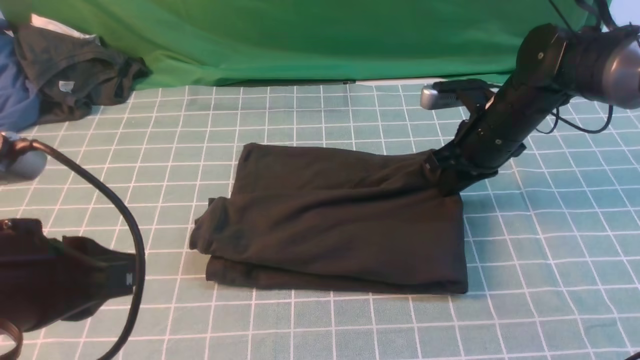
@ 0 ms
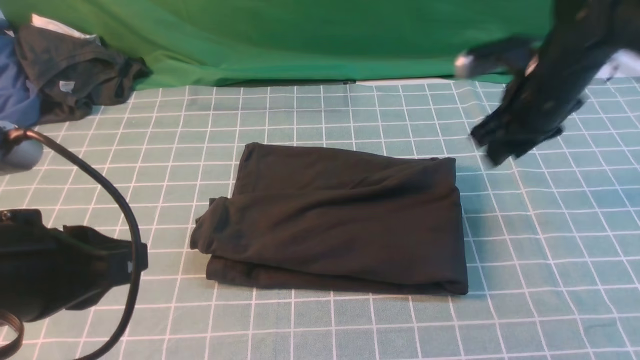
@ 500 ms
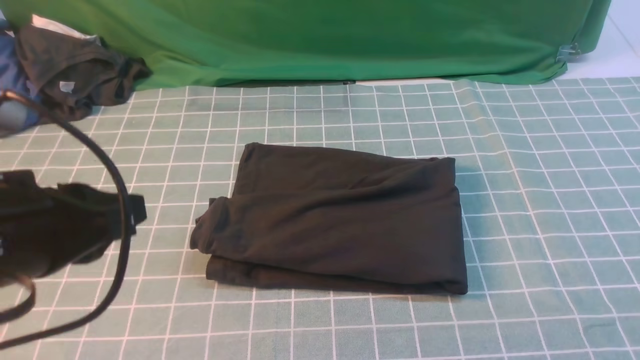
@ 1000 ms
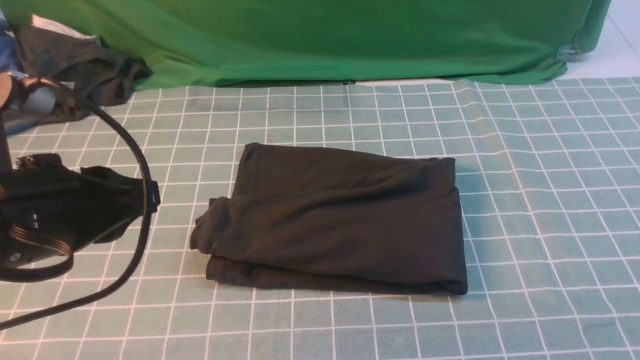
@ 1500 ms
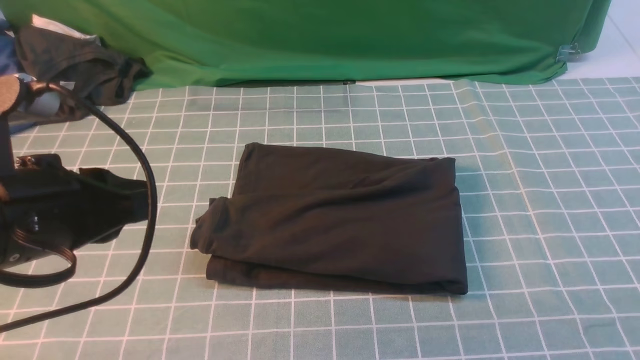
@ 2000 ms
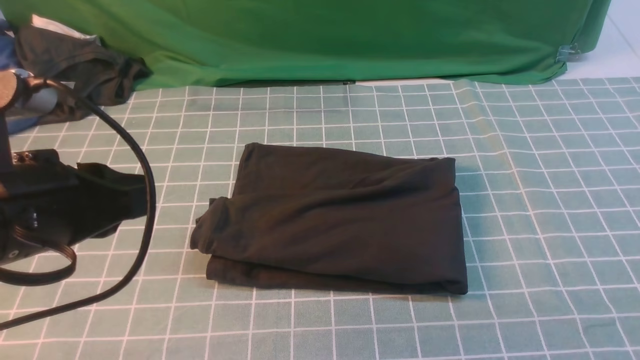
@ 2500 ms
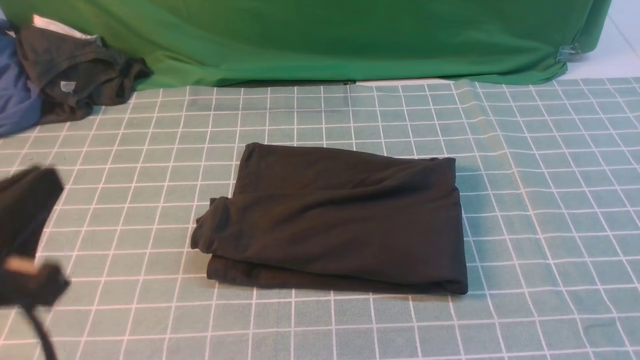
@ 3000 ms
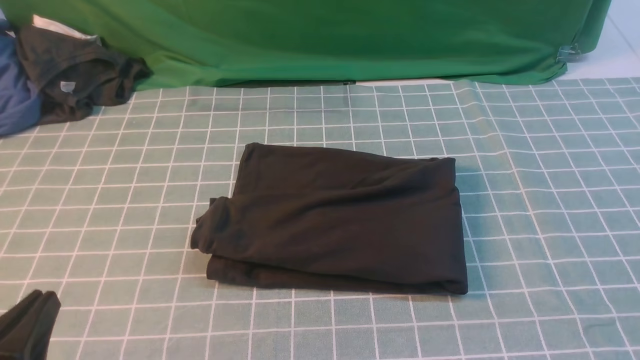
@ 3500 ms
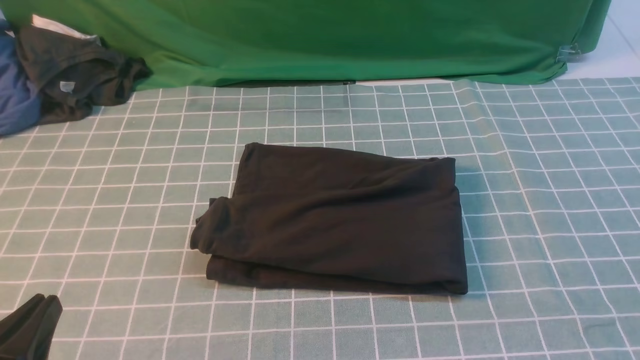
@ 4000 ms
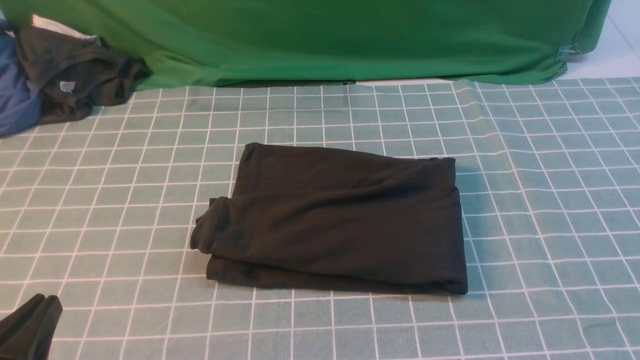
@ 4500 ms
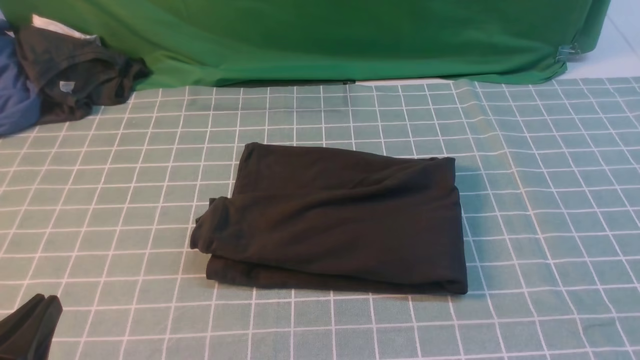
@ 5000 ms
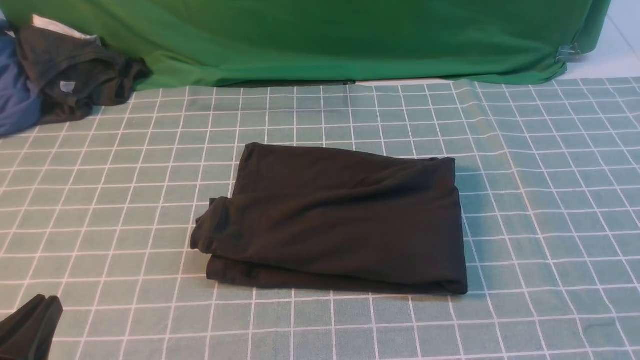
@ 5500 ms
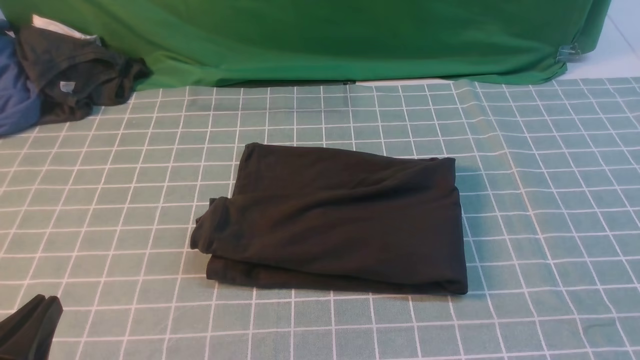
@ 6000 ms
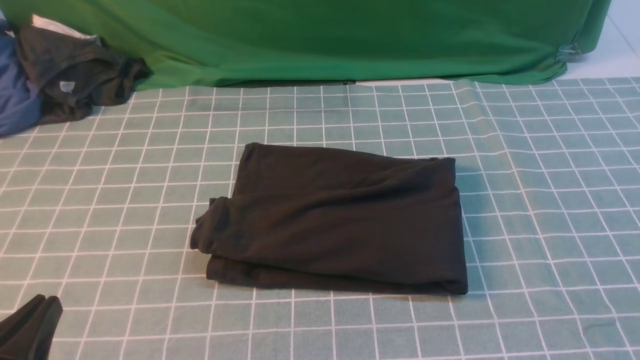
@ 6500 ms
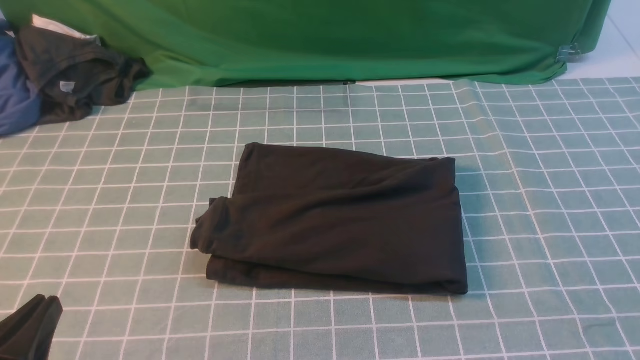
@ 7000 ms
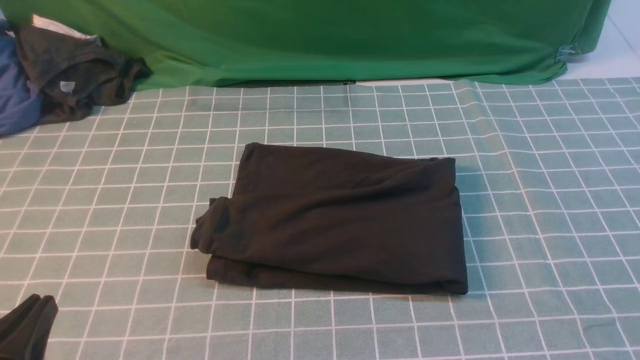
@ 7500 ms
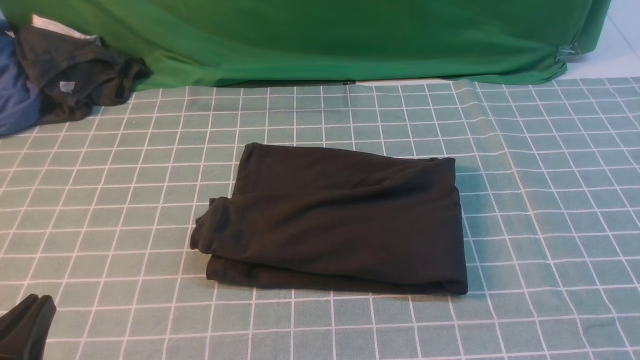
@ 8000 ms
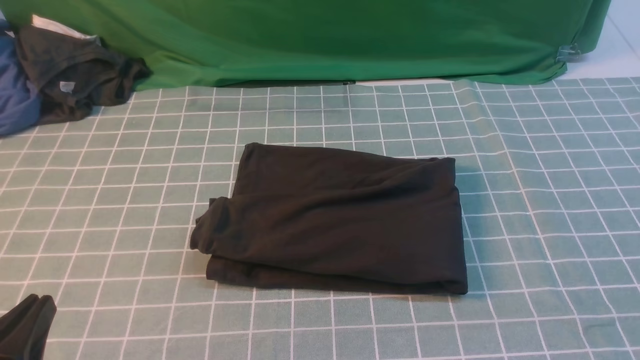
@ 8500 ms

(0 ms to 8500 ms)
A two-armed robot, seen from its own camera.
0 ms - 2000 ms: The right gripper shifts about 40 cm backward.
2000 ms - 4000 ms: The left gripper travels downward and backward by approximately 15 cm.
6500 ms - 8500 ms: Both grippers stay put.
